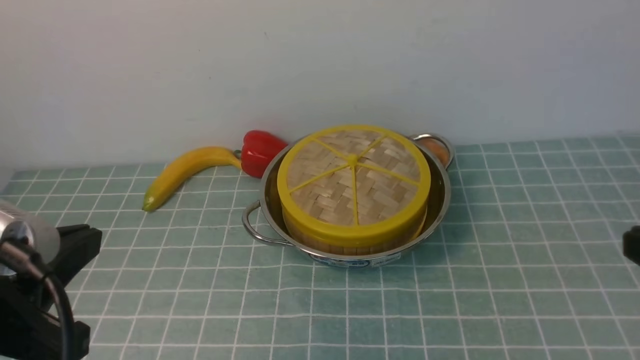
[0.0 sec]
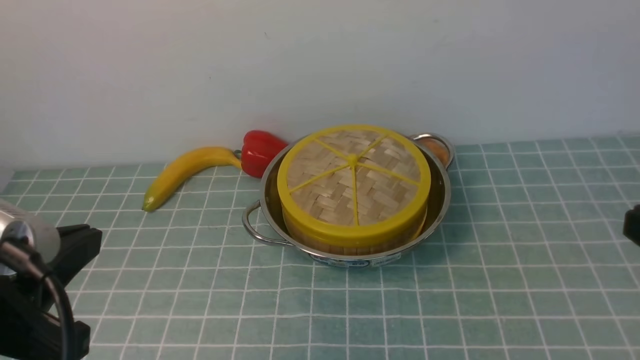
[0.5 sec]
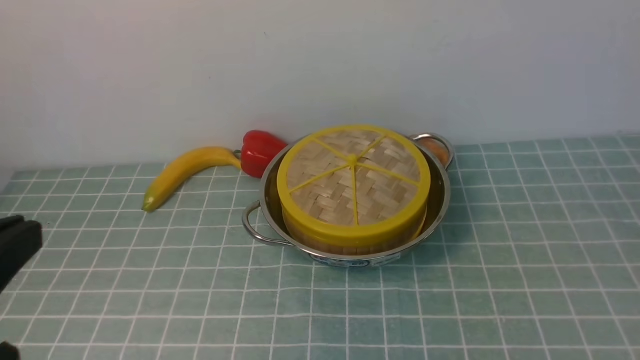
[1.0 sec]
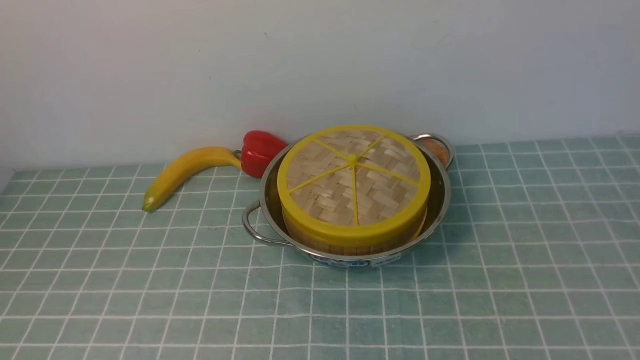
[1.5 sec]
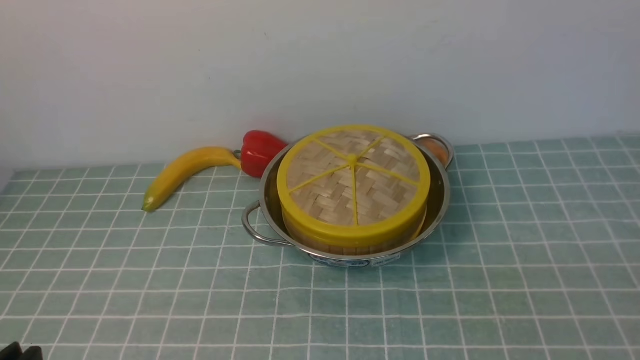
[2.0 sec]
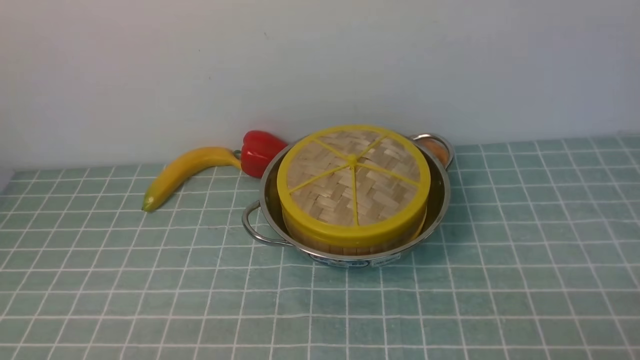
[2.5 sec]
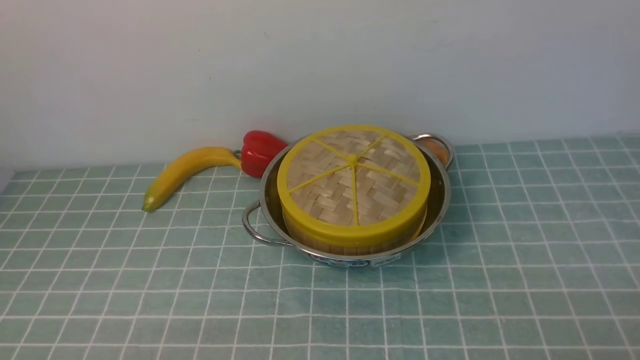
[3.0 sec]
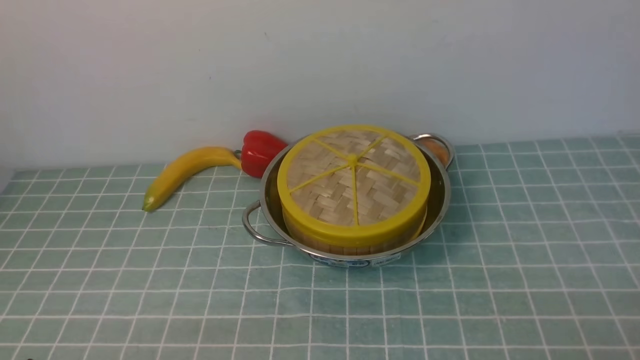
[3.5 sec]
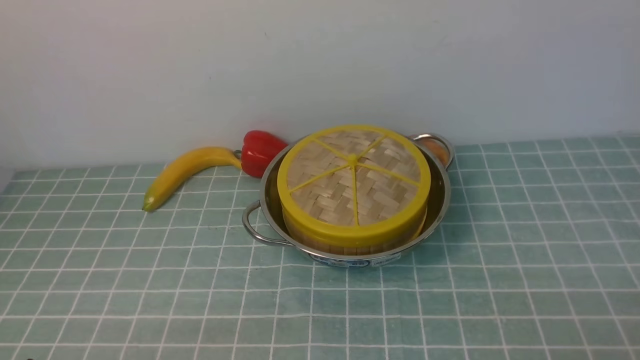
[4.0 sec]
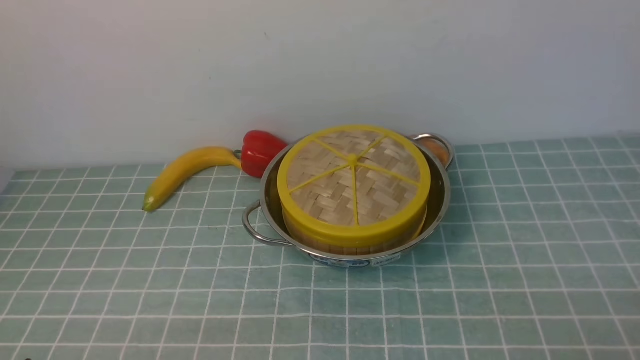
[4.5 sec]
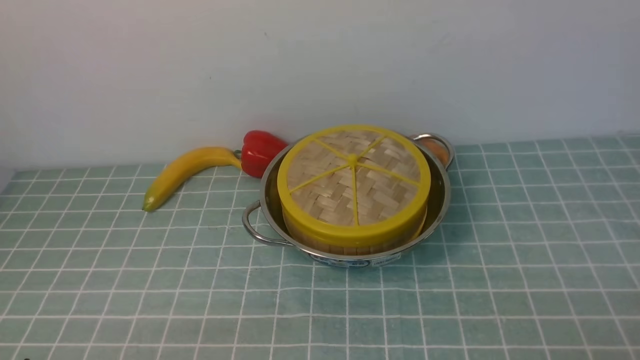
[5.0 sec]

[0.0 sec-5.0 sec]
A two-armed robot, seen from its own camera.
Task of the whole recording: place the steamer in the pot on the blue tablecloth, and put the lid on the steamer.
0.0 sec to 2.5 sec: The left gripper moves downward and backward, about 15 cm.

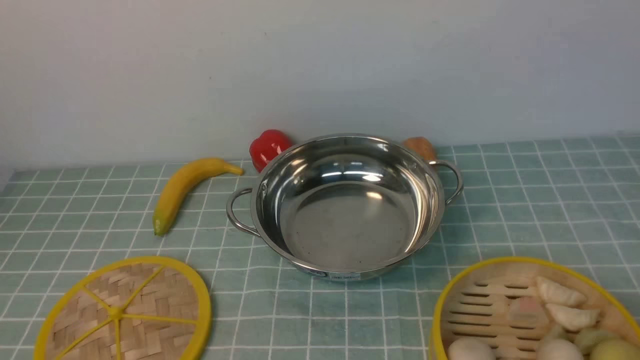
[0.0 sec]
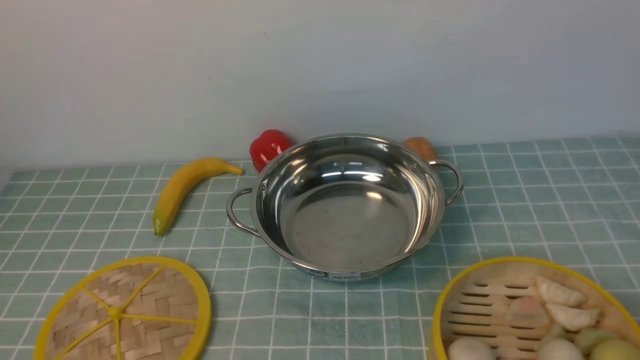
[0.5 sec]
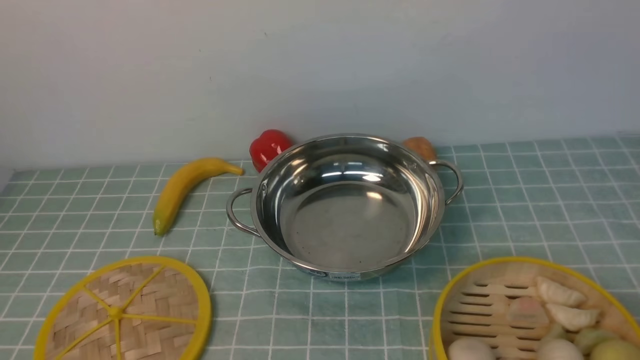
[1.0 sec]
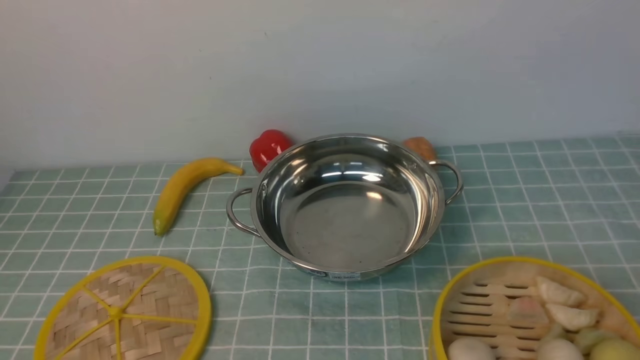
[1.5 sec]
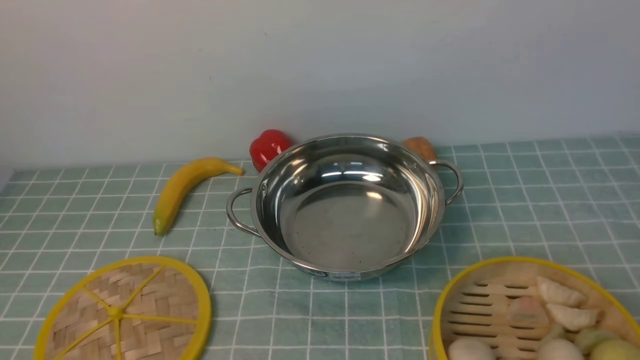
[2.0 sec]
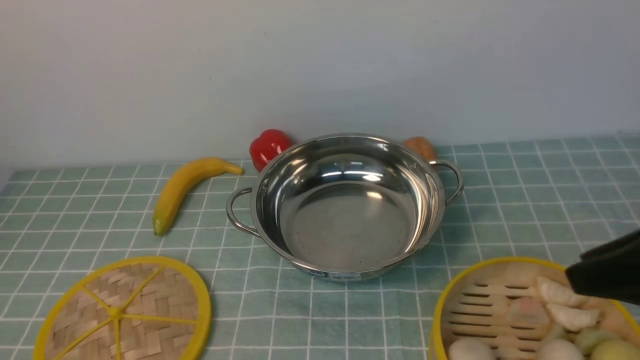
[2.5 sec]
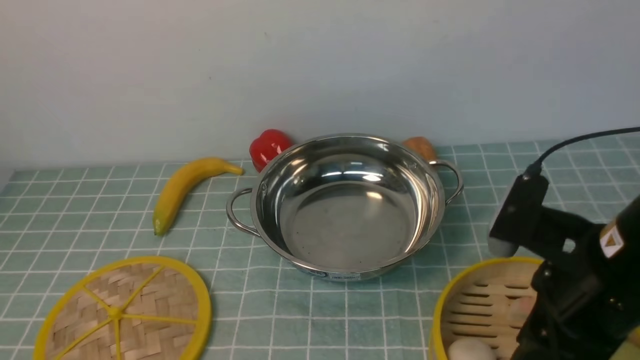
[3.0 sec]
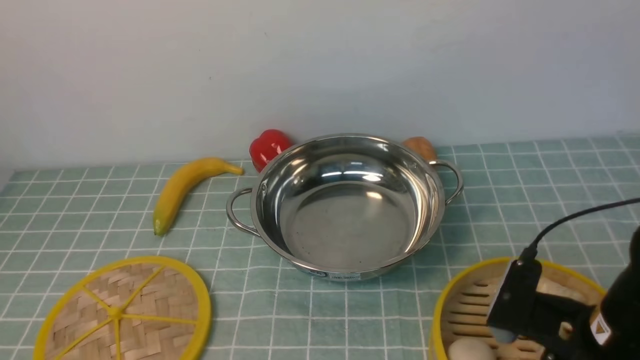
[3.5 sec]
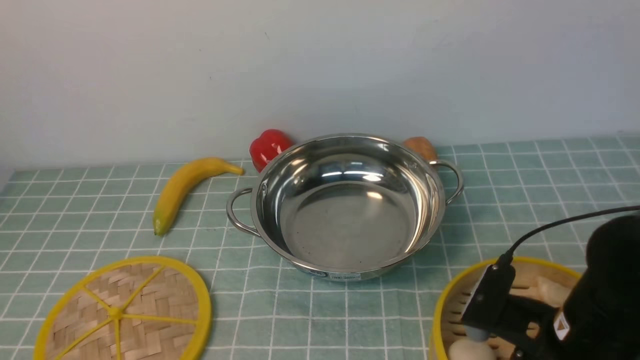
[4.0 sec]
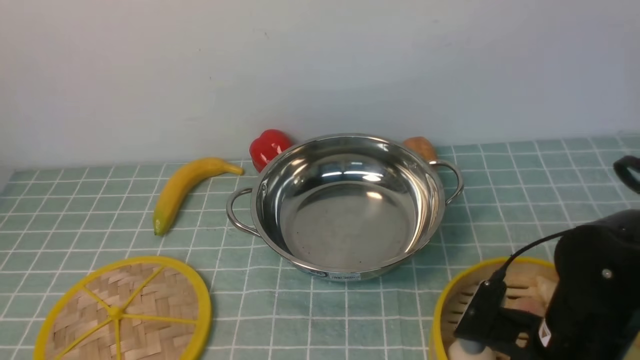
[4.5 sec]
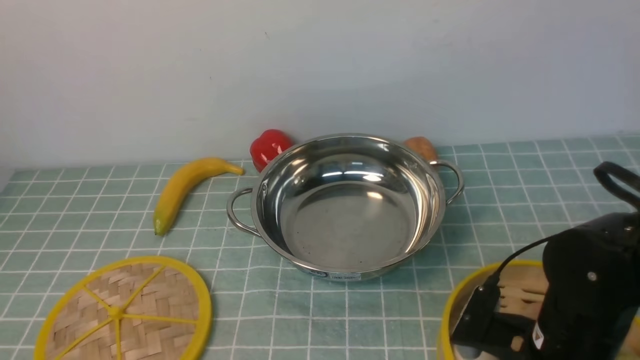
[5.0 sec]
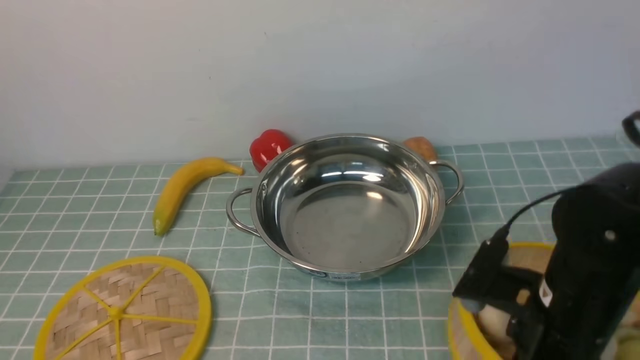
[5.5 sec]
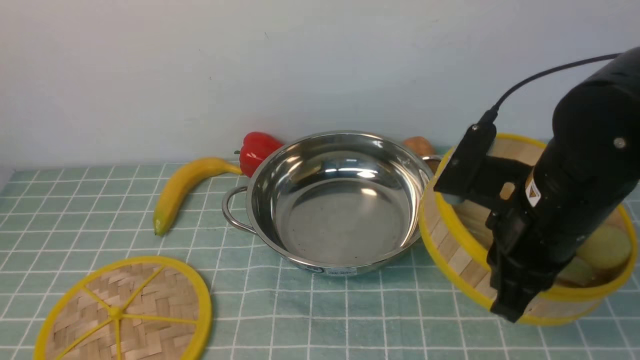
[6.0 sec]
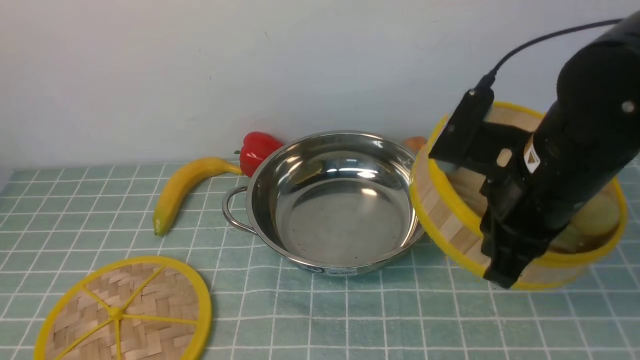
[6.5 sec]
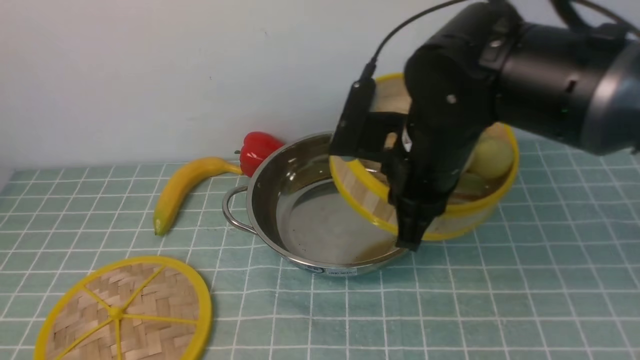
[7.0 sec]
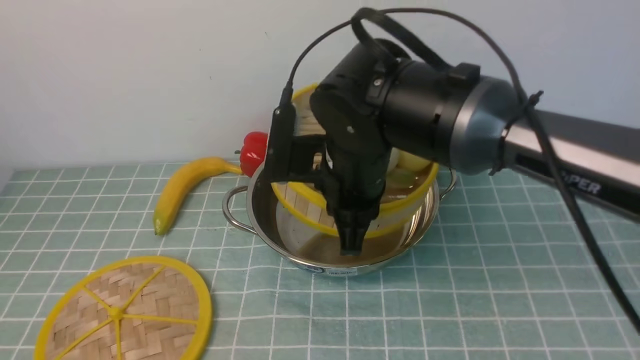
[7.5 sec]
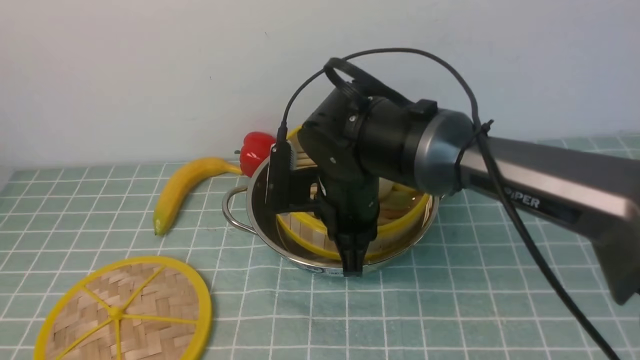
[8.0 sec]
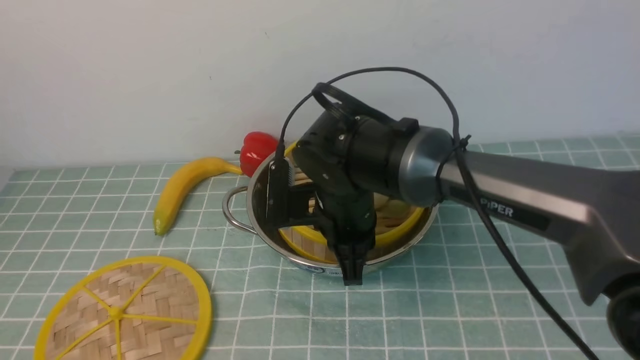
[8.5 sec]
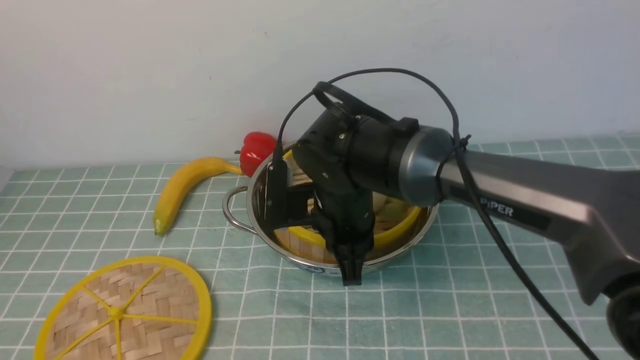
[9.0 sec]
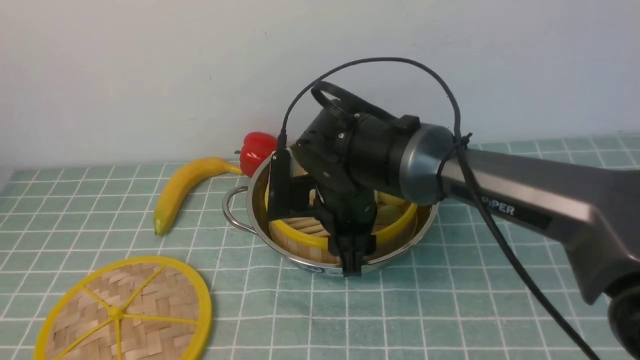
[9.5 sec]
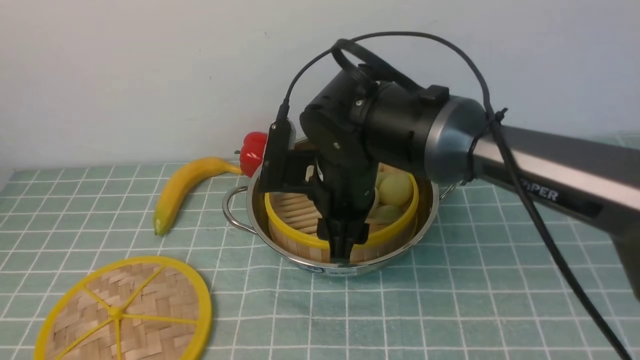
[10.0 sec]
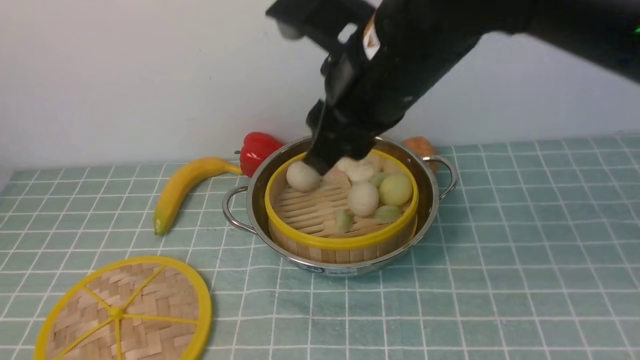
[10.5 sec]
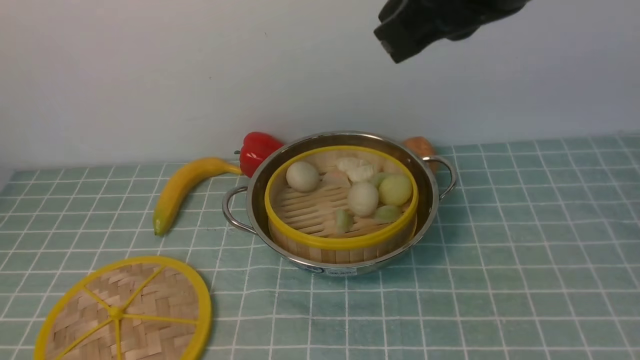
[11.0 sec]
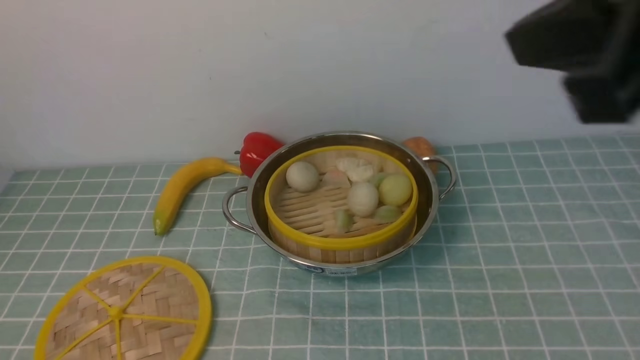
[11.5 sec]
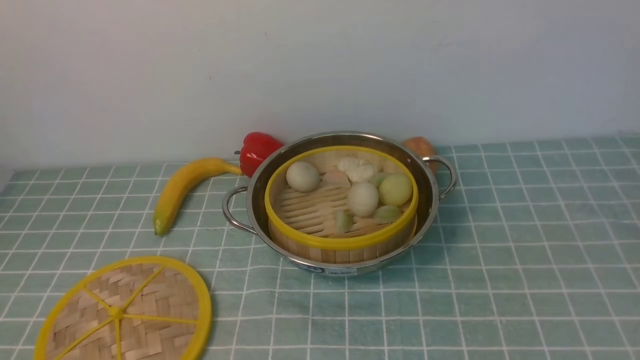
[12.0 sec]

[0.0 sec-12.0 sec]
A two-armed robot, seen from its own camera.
Task of the whole recording: place the steamer in the pot on the blue tablecloth, and put the lid on the steamer.
Step, 0.0 sec to 5.5 sec: use the right arm to lift the steamer closest to it.
Step, 6.0 sec to 10.5 sec: use the right arm to put the steamer into the iron steamer pot in the middle.
2.0 sec to 4.0 sec: The right gripper shifts approximately 20 cm to the left, forward and downward.
4.0 sec to 6.0 sec: The right gripper heads upward and forward, covering some 10 cm, and closes its fingers.
6.0 sec to 8.0 sec: The right gripper heads to the left and forward, covering some 20 cm.
8.0 sec to 10.0 sec: The right gripper opens.
10.0 sec to 12.0 sec: The right gripper is displaced to the right and backward by some 40 cm, and closes.

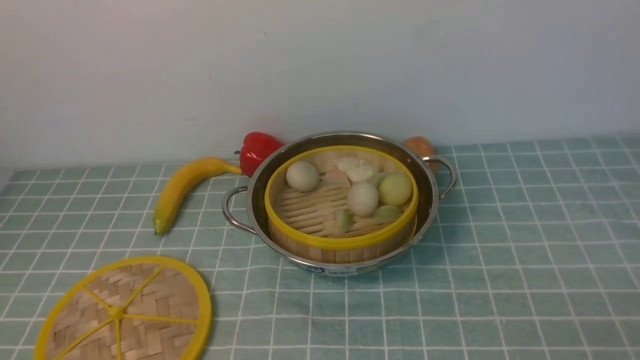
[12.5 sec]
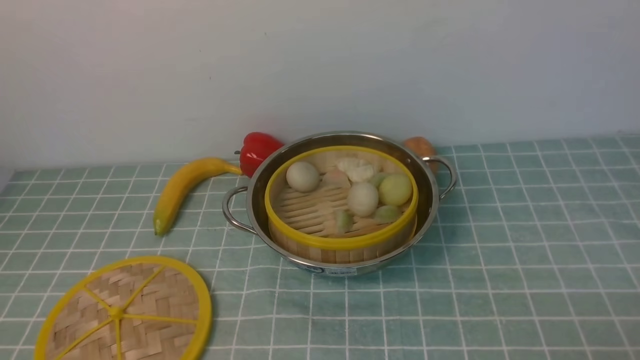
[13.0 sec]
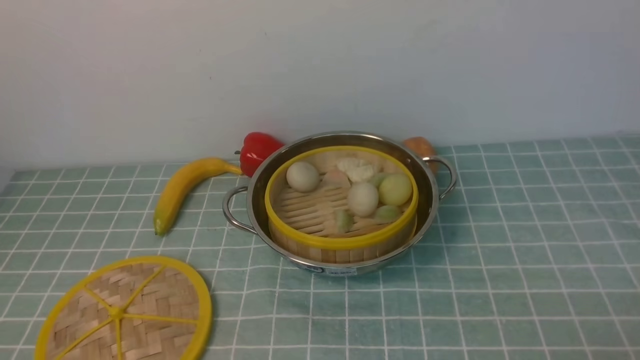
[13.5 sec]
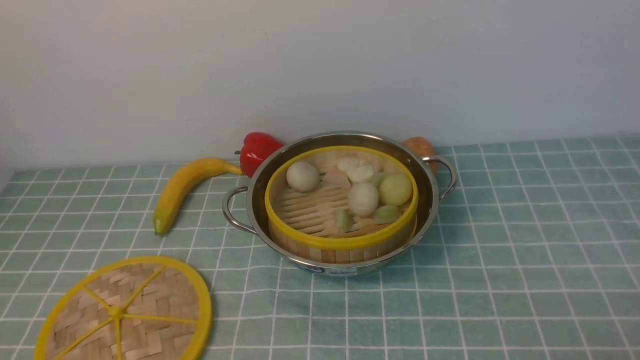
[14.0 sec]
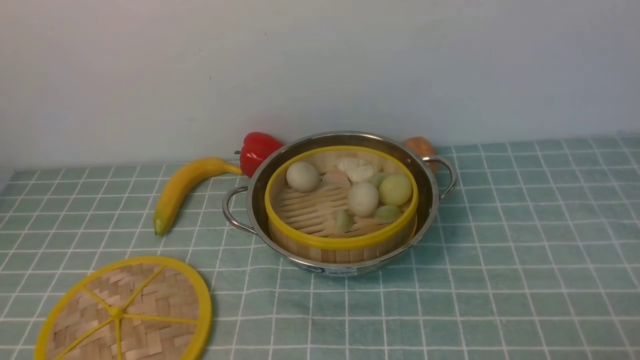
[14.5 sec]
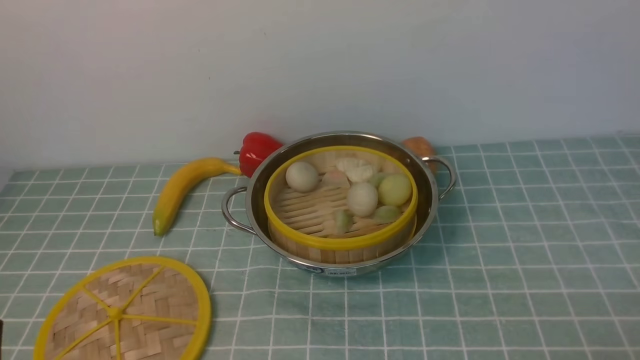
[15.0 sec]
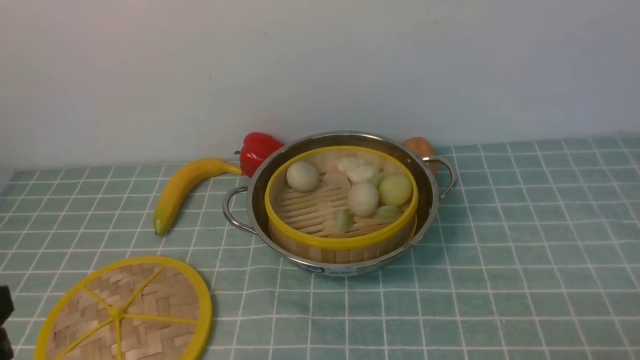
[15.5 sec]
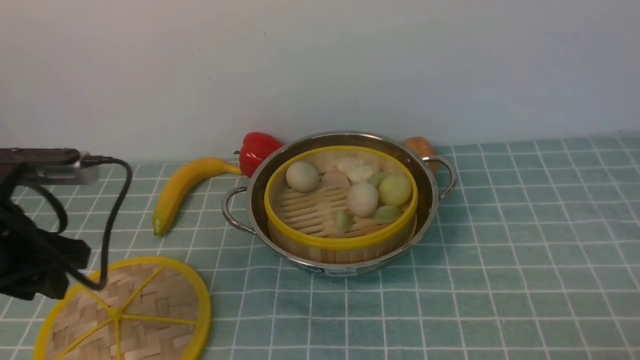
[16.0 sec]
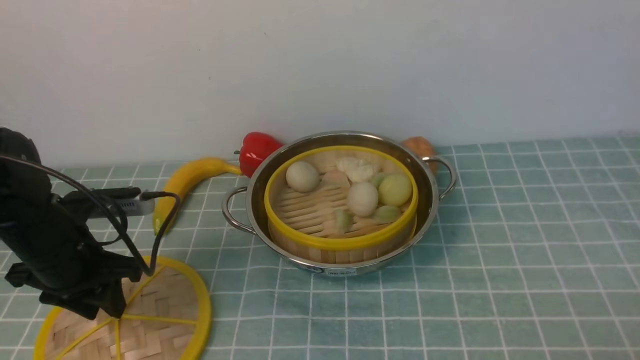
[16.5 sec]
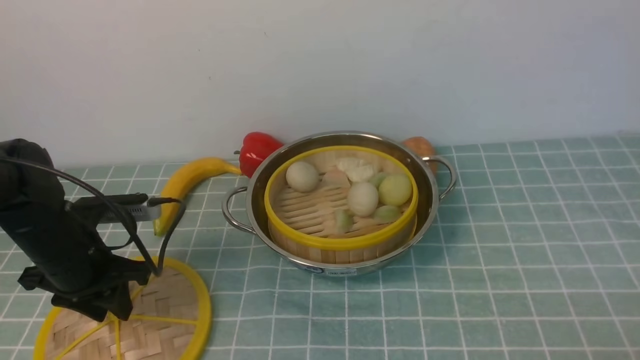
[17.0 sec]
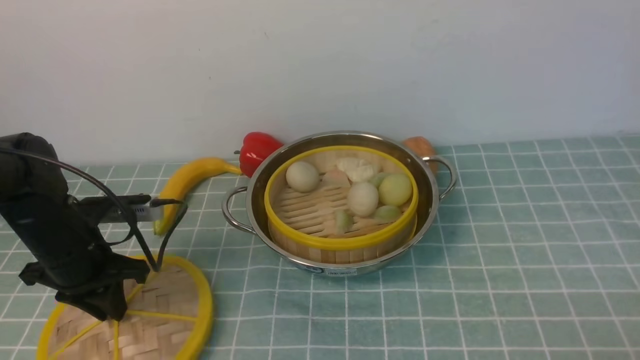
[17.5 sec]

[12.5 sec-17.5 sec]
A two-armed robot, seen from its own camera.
Task of the whole recording: place the steamer in the pot on the blue tablecloth, and put the lid on the steamer.
15.0 sec to 17.5 sec: The left gripper shifts approximately 25 cm forward, and closes its fingers.
